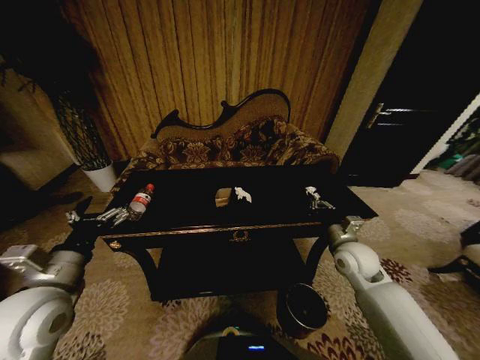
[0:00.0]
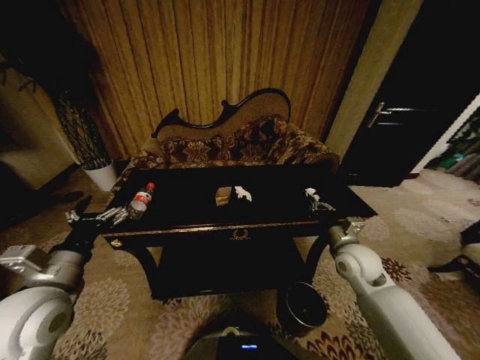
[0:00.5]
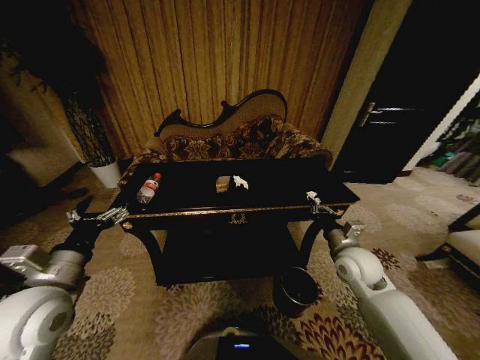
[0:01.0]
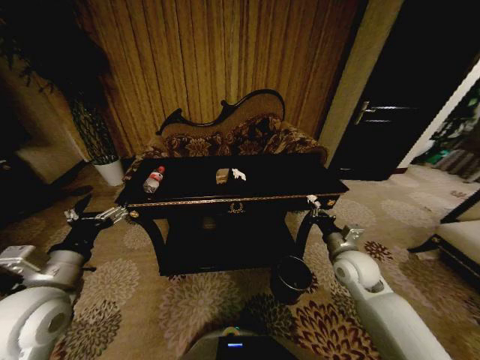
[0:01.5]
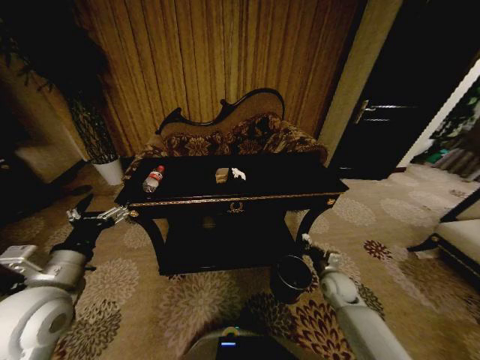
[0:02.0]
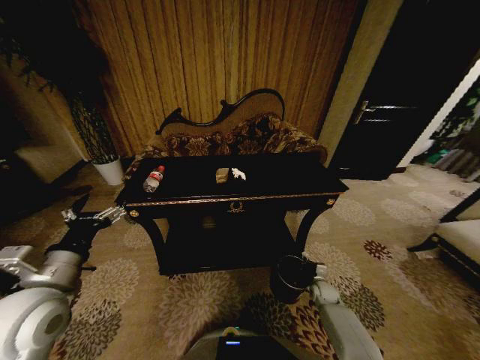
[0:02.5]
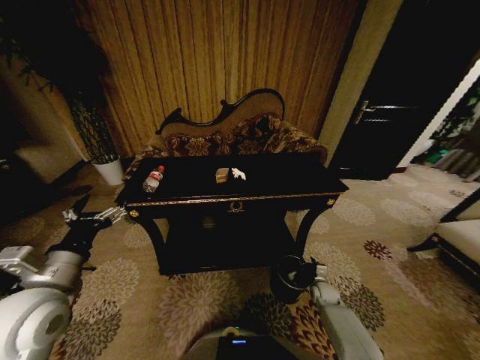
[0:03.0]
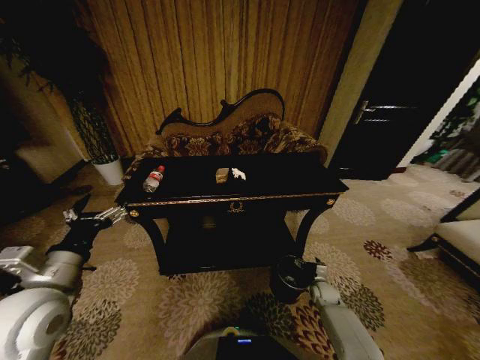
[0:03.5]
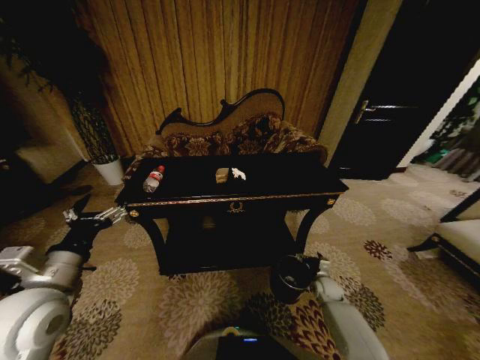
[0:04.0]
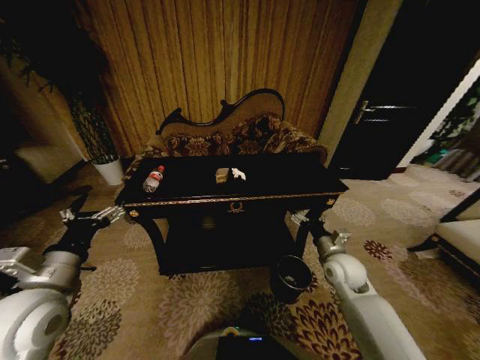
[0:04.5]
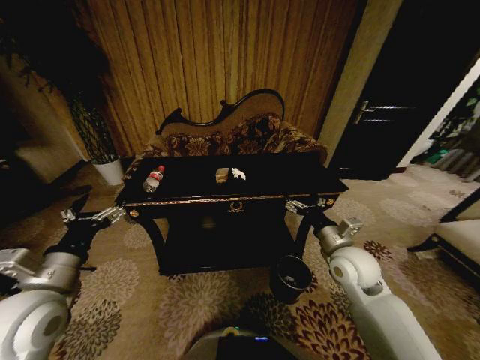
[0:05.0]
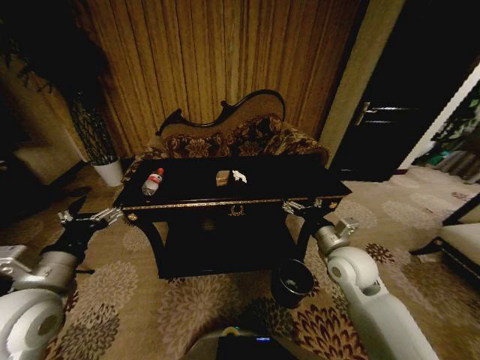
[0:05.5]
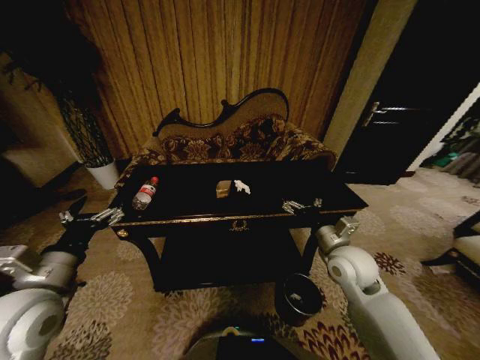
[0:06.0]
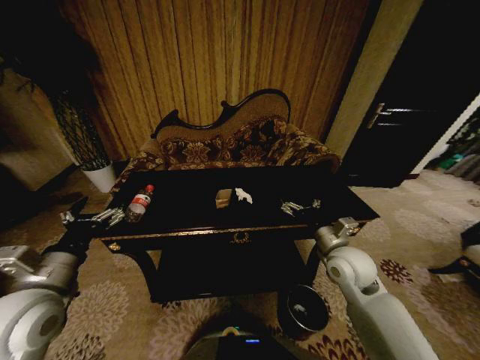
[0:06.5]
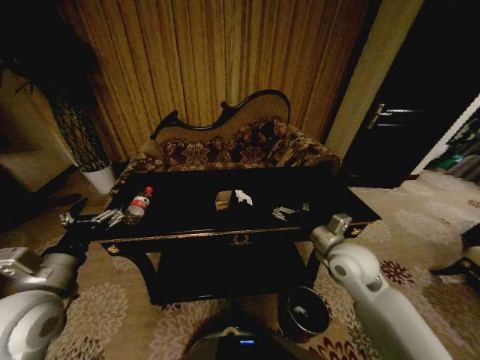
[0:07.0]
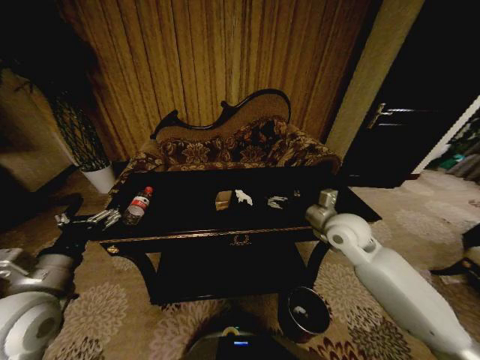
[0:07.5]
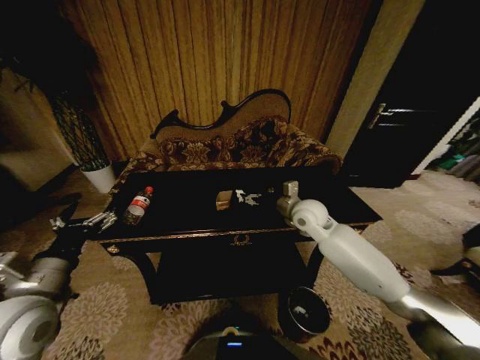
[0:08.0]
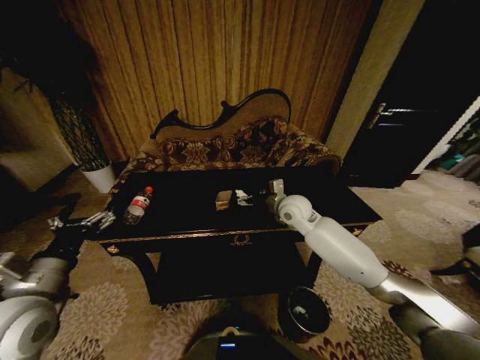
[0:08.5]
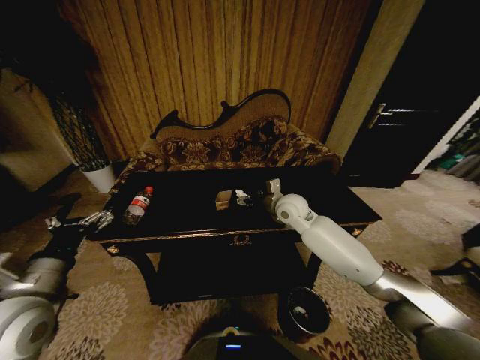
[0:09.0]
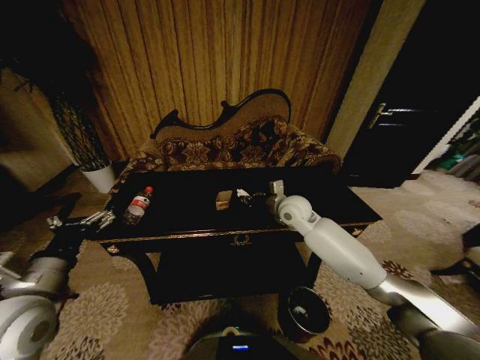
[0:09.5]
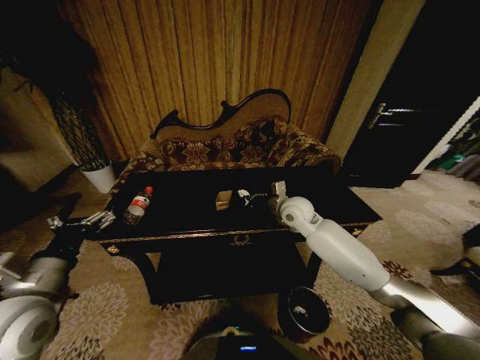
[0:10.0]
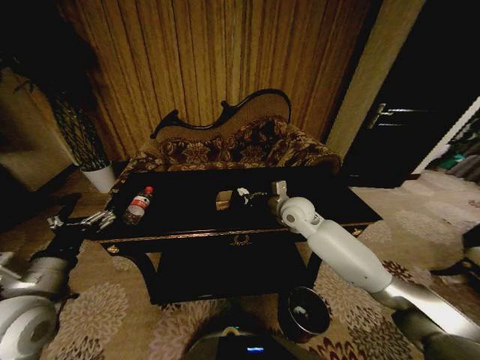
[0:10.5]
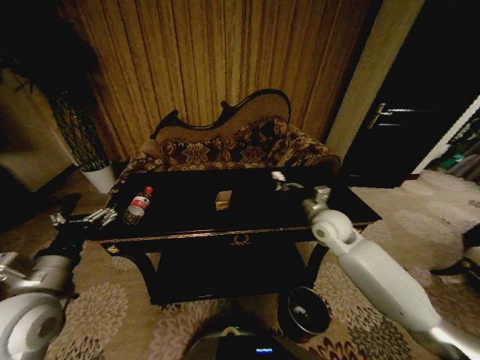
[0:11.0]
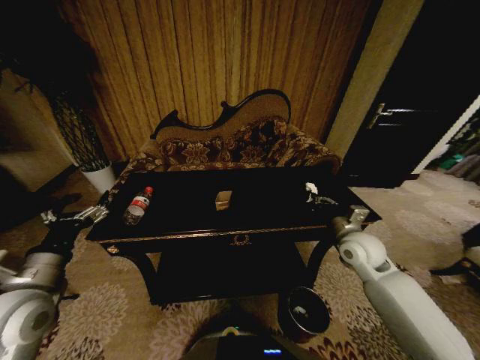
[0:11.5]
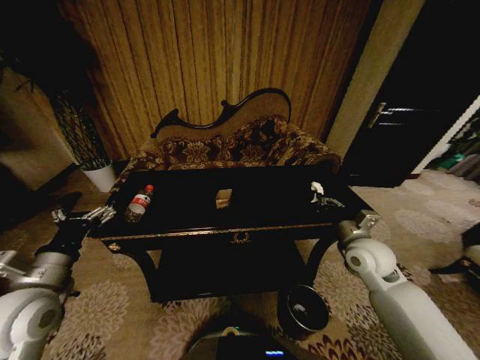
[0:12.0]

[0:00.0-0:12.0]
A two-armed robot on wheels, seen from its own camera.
Task of the whole recording: Move to the front of the table and place the trash on the table into the trash bin.
0.0 to 2.0 s: The right gripper heads downward, covering approximately 15 cm.
2.0 to 4.0 s: The right gripper moves downward, about 10 cm, and opens up.
4.0 to 6.0 s: The right gripper travels upward by approximately 30 cm.
6.0 to 8.0 s: The right gripper shifts some 15 cm forward and to the left.
8.0 to 10.0 s: The right gripper closes its fingers.
10.0 to 12.0 s: The right gripper heads to the right and backward, covering some 20 cm.

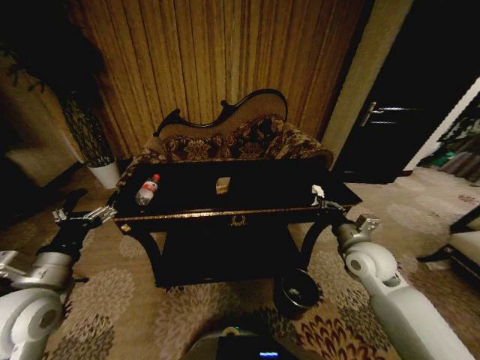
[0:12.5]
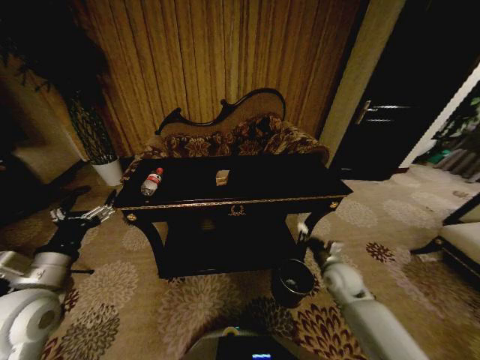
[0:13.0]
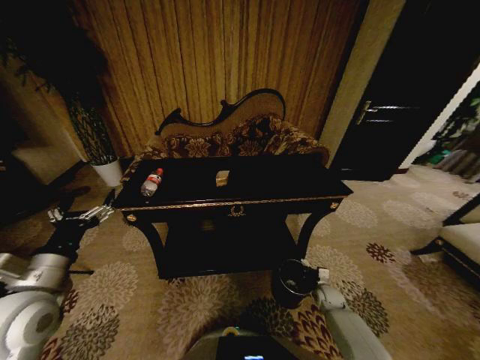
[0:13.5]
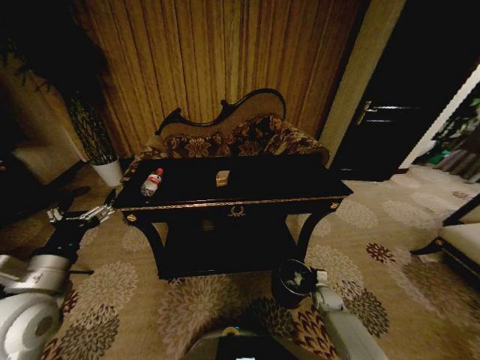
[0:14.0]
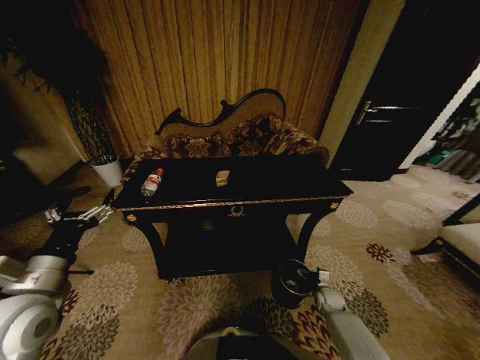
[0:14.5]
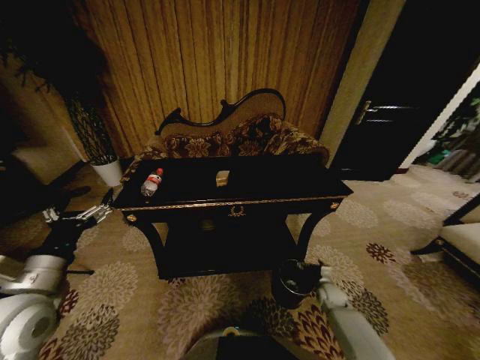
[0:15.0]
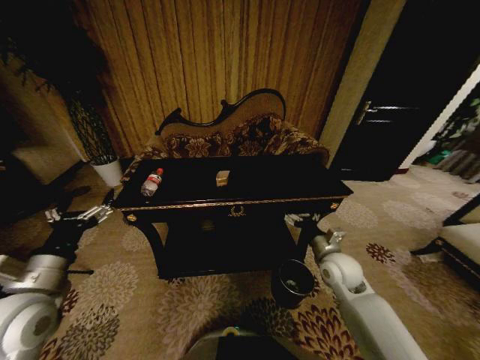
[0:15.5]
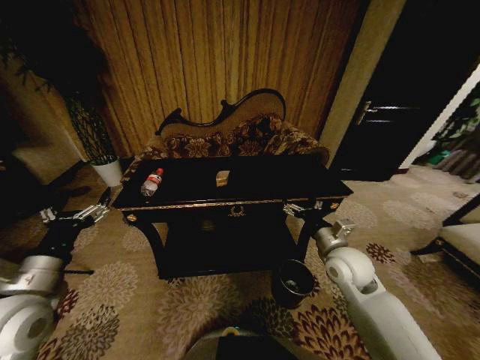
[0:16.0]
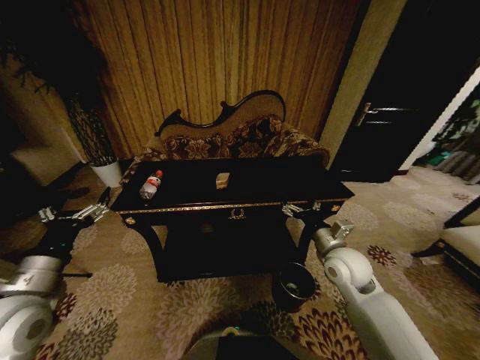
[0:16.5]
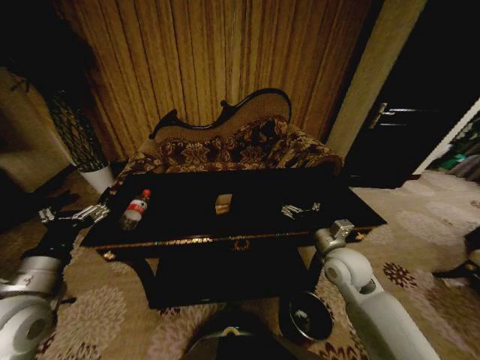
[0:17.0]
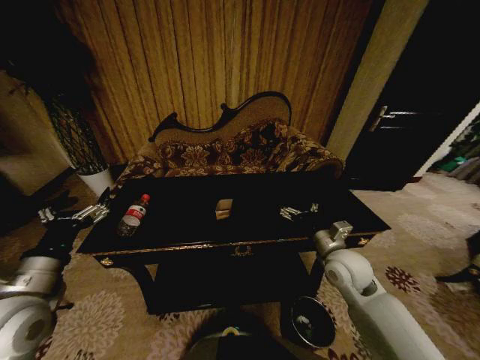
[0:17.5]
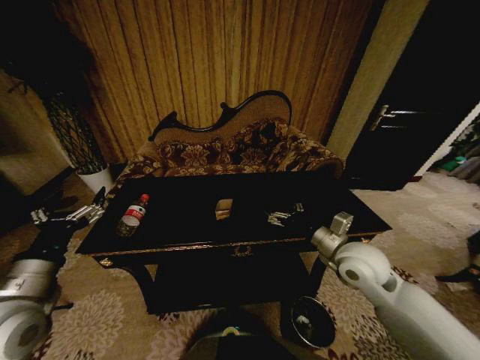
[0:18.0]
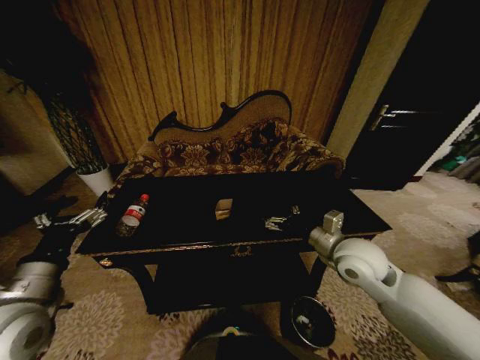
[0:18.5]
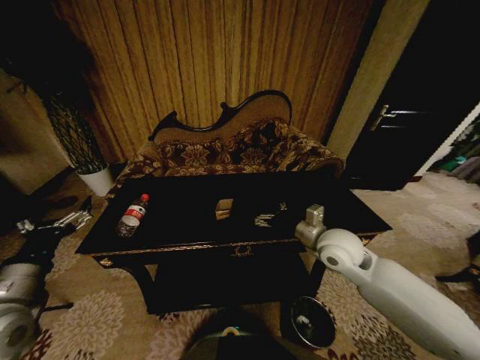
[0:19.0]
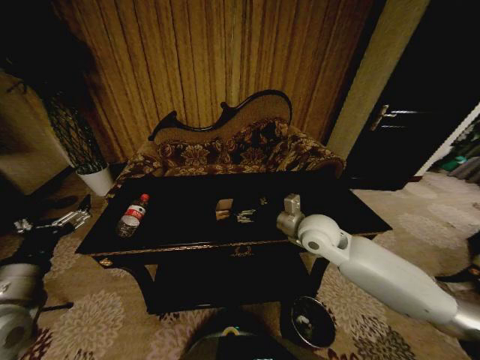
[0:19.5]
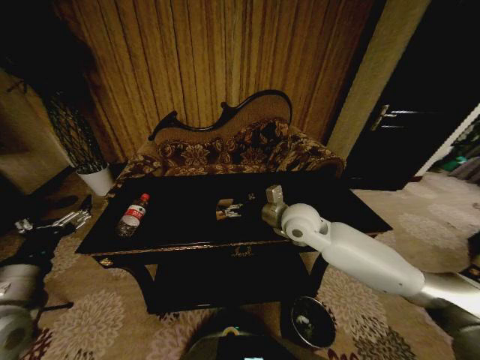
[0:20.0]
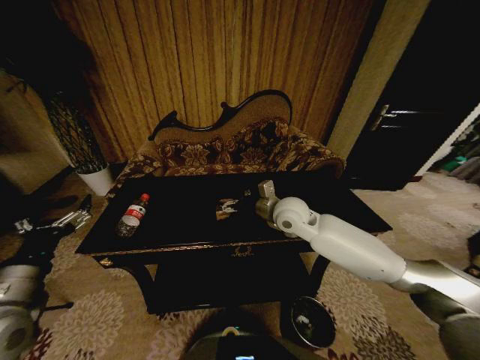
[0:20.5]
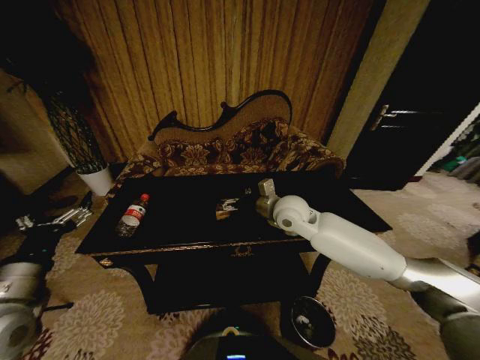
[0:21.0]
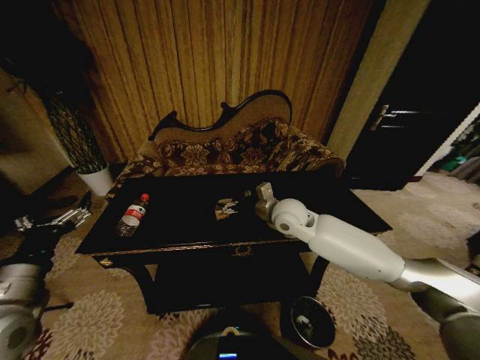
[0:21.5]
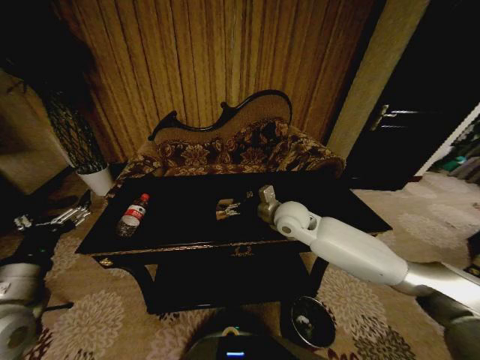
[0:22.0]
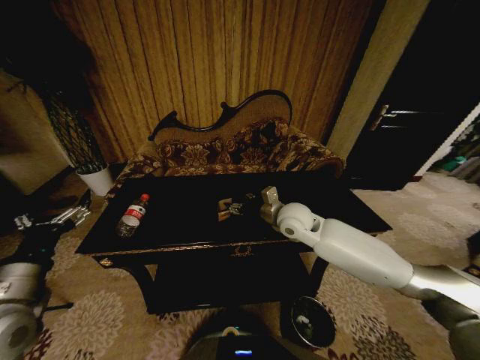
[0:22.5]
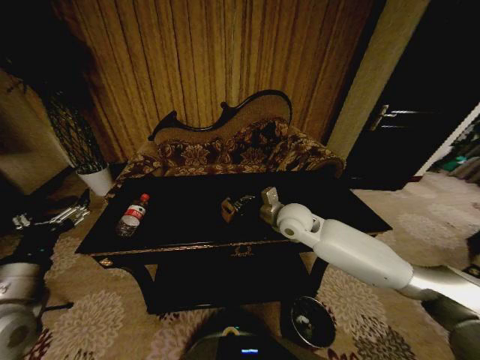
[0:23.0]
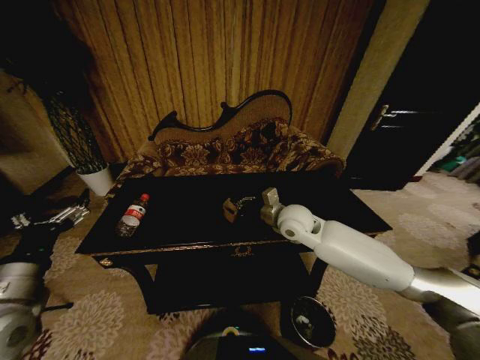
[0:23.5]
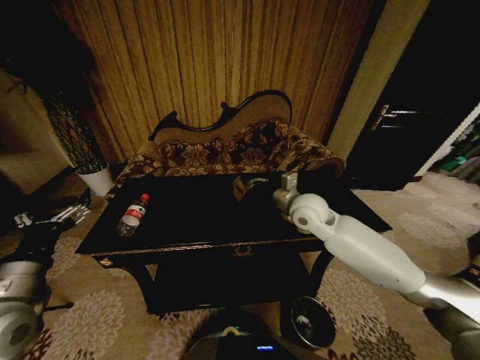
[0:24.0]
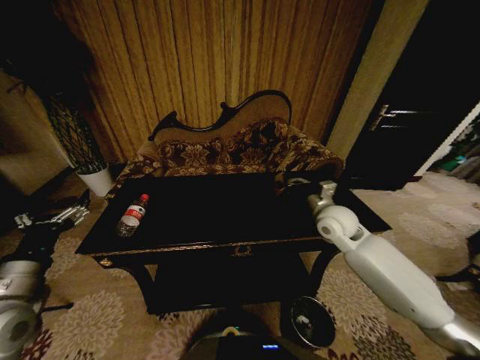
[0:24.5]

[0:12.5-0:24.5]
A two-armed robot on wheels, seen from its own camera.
Task of the whole recording: Move to the front of the table and place the trash on the table into the trash bin.
12.5 to 14.5 s: The right gripper moves downward, about 30 cm, and opens its fingers.
14.5 to 16.5 s: The right gripper goes approximately 30 cm upward.
16.5 to 18.5 s: The right gripper is displaced upward by some 5 cm.
18.5 to 20.5 s: The right gripper goes about 15 cm forward and to the left.
20.5 to 22.5 s: The grippers stay close to where they were, moving slightly.
22.5 to 24.5 s: The right gripper goes some 10 cm to the right, and closes.

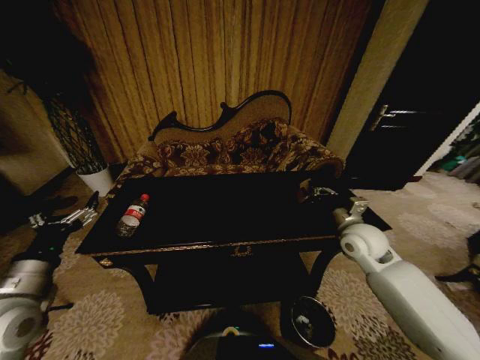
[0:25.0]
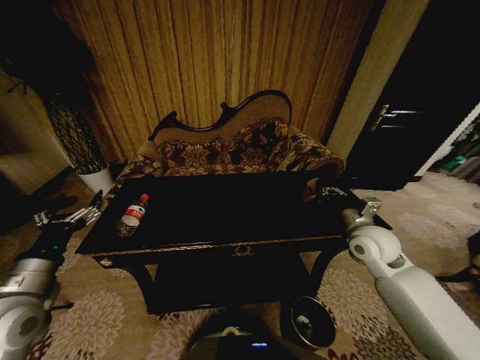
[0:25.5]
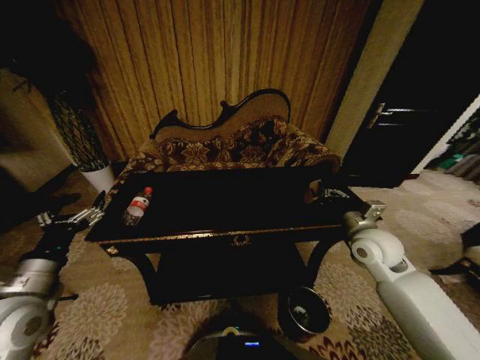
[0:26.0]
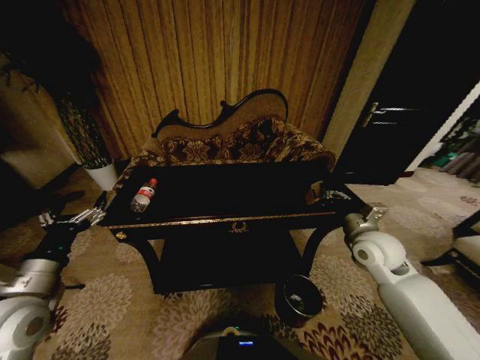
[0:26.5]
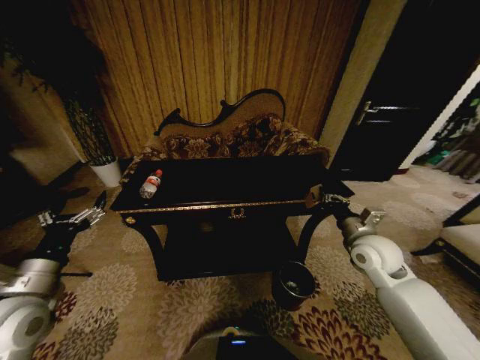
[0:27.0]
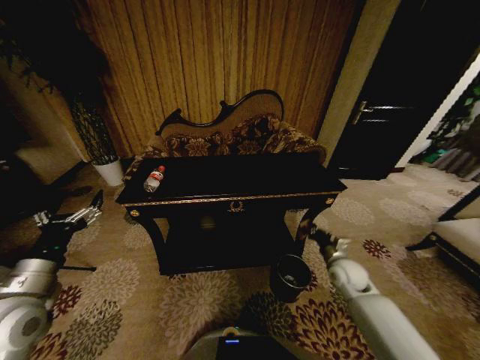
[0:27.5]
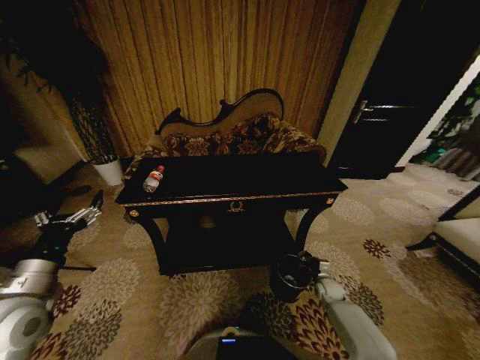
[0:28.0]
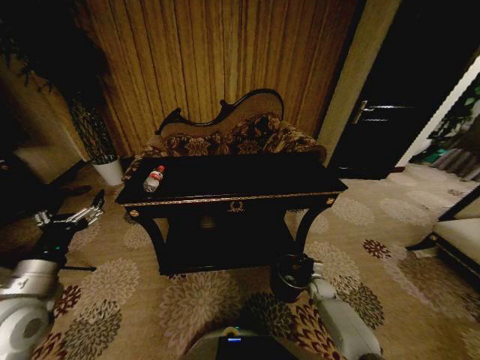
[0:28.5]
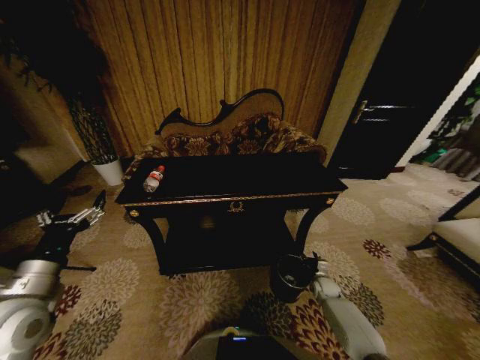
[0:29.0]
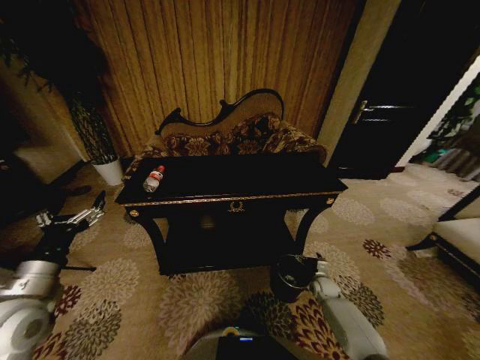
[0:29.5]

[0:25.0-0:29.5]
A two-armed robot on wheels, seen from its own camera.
Task of the whole recording: Move to the front of the table and place the trash on the table into the trash bin.
27.0 to 29.5 s: The right gripper heads downward, covering some 35 cm, and opens.
